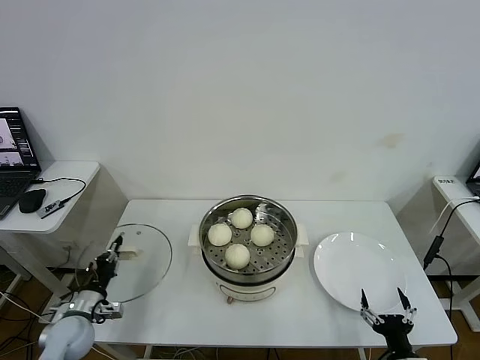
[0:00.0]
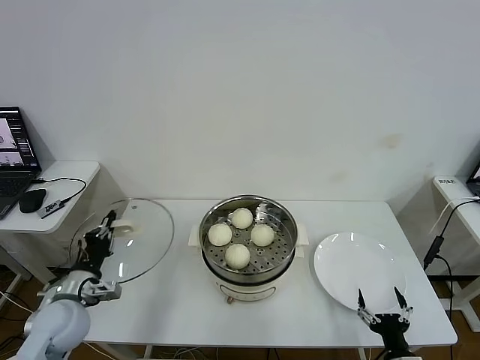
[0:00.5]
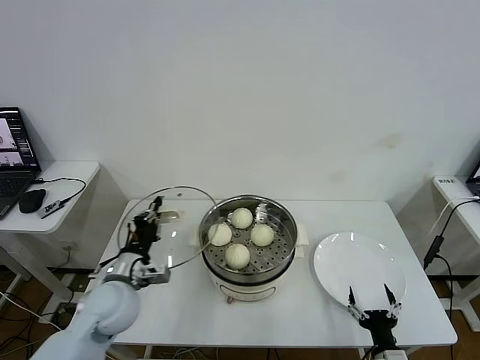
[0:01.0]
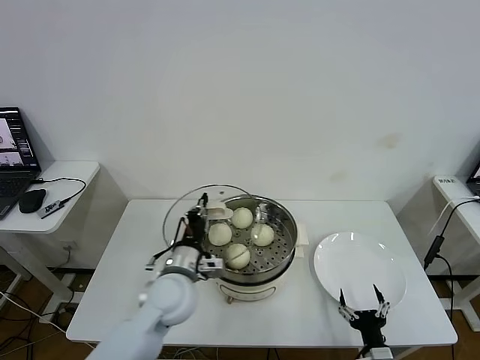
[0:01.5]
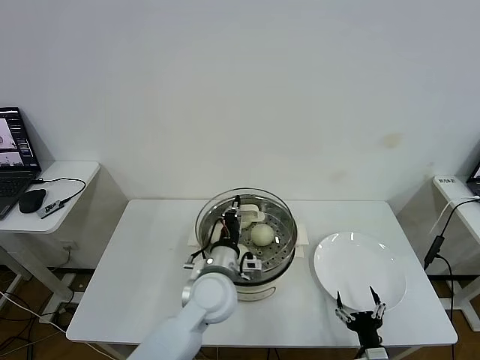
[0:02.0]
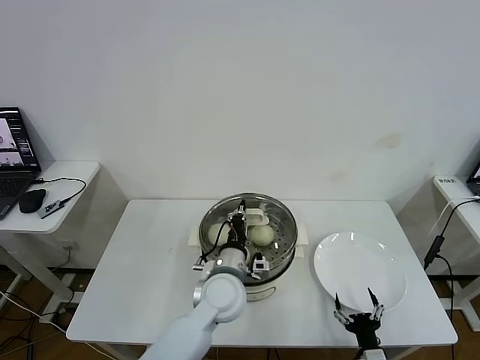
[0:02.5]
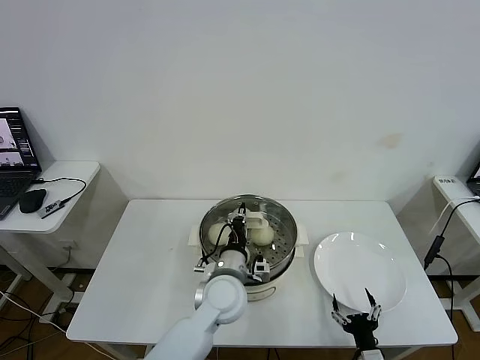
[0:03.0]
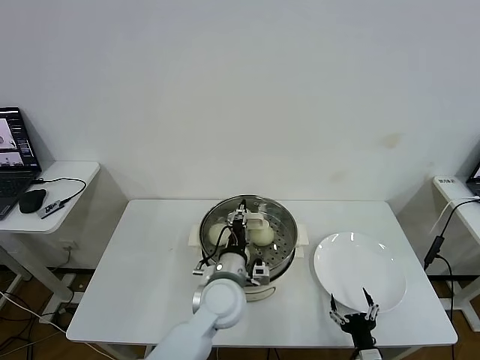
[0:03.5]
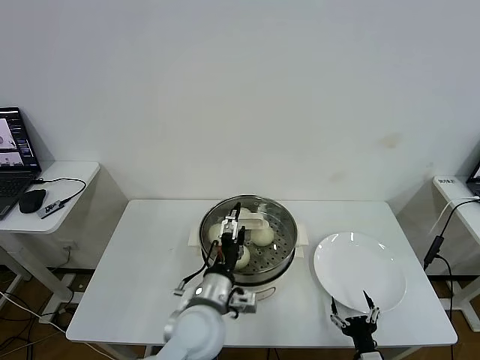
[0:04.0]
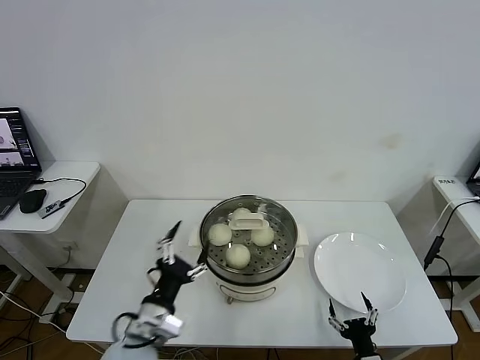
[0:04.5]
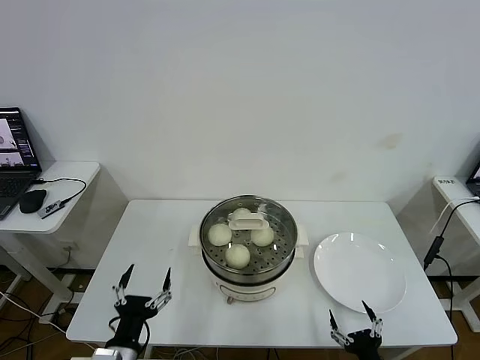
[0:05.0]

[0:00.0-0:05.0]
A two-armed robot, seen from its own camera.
Task of the whole recording: take steamed baozi put them in steamer then cover it.
Step, 0:00.0 to 0:03.0: Place the pot lid on the steamer with left gripper.
0:00.0 to 0:02.5: The right gripper ends up about 5 cm from where it was, while the left gripper travels to the right by approximately 35 cm.
0:02.5 to 0:05.0: The left gripper shifts roughly 25 cm to the left and backward, and opens up. Meanwhile the right gripper shifts by approximately 5 cm.
